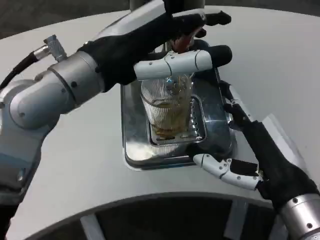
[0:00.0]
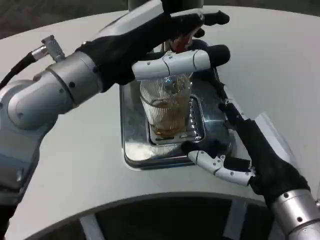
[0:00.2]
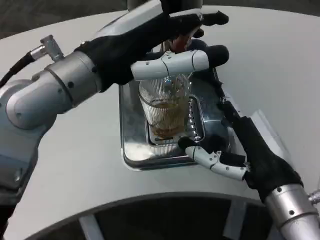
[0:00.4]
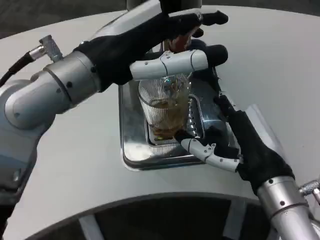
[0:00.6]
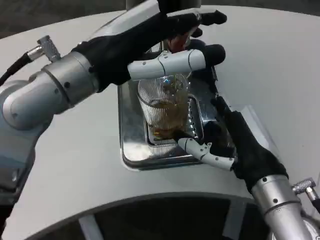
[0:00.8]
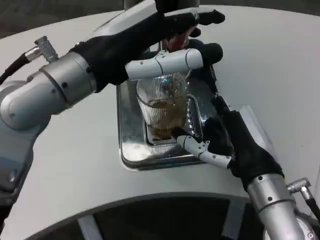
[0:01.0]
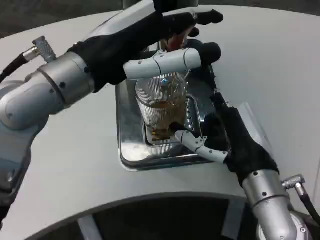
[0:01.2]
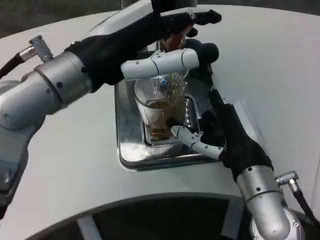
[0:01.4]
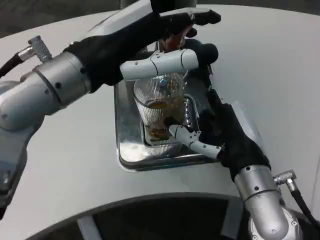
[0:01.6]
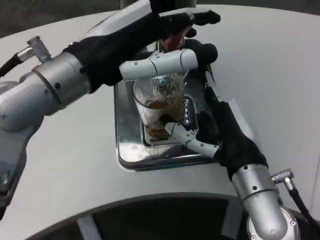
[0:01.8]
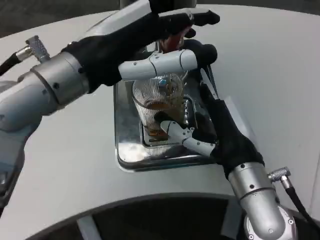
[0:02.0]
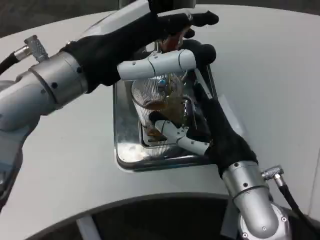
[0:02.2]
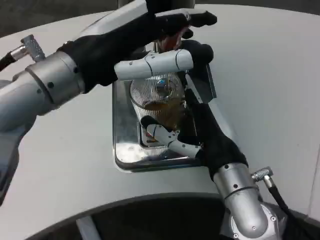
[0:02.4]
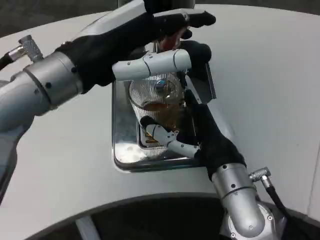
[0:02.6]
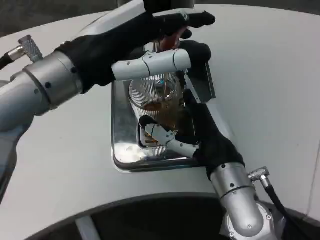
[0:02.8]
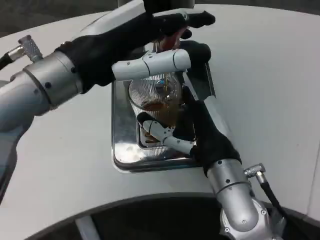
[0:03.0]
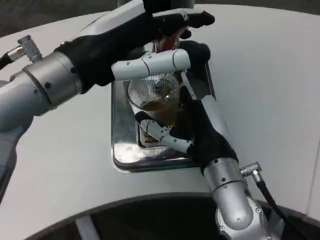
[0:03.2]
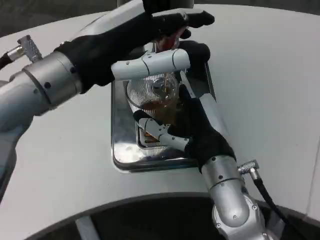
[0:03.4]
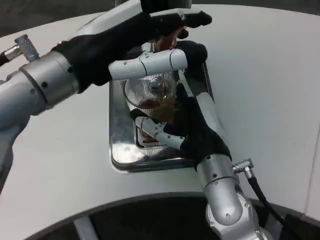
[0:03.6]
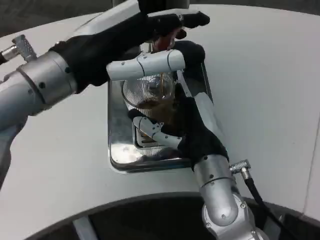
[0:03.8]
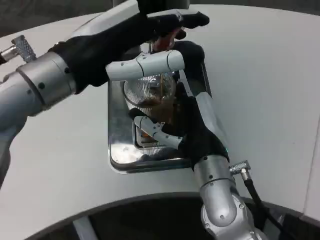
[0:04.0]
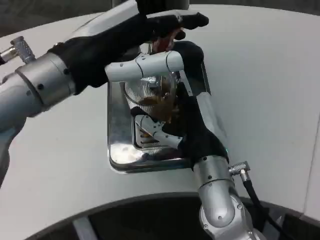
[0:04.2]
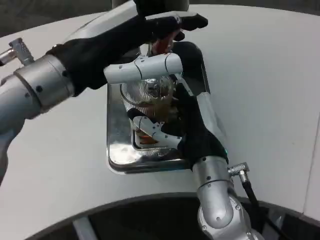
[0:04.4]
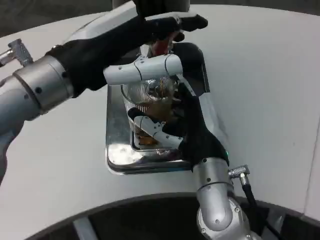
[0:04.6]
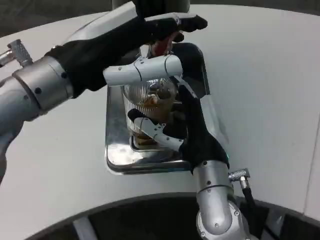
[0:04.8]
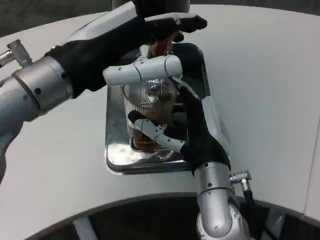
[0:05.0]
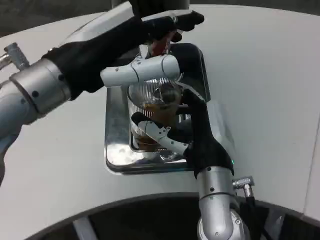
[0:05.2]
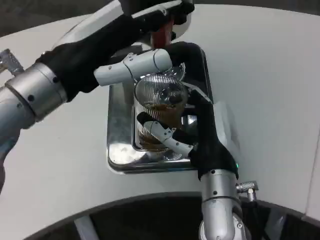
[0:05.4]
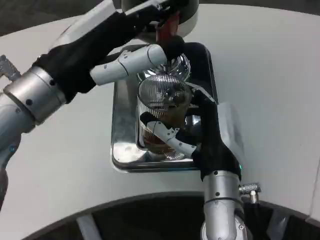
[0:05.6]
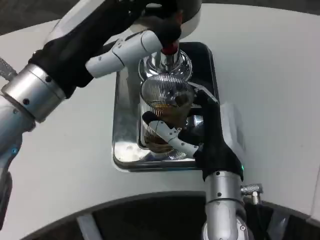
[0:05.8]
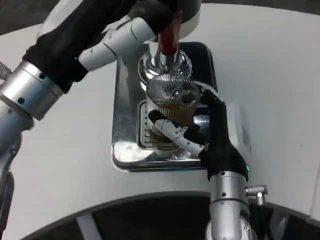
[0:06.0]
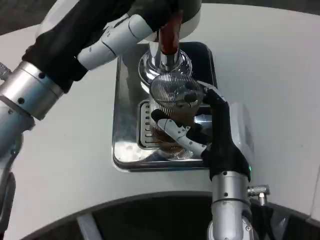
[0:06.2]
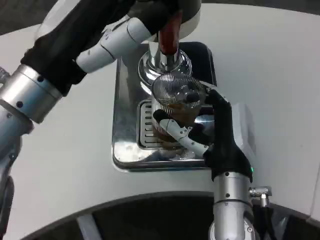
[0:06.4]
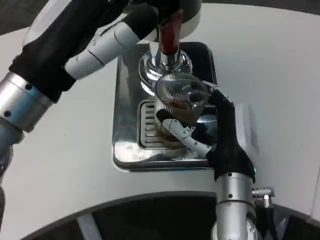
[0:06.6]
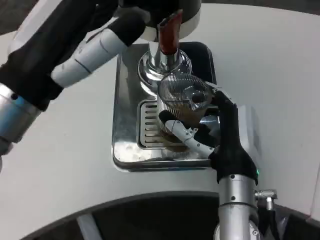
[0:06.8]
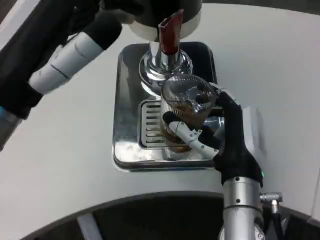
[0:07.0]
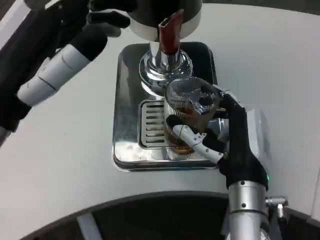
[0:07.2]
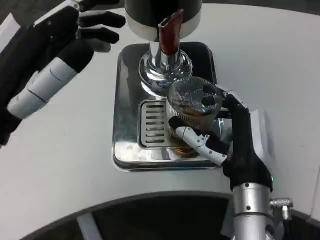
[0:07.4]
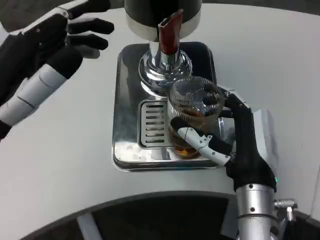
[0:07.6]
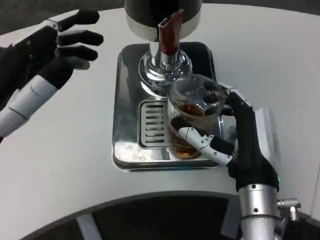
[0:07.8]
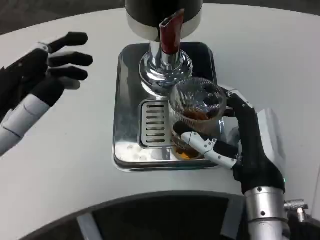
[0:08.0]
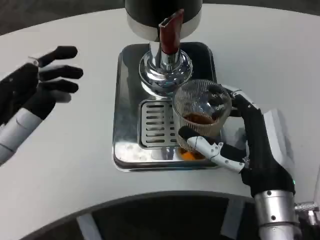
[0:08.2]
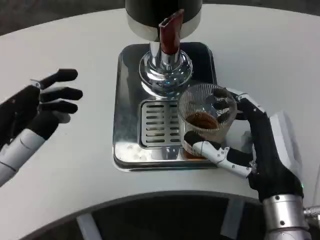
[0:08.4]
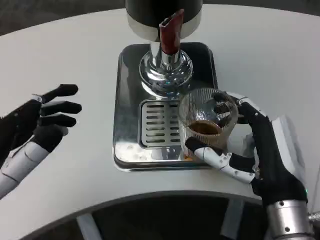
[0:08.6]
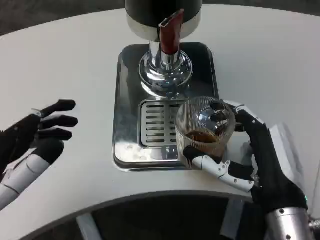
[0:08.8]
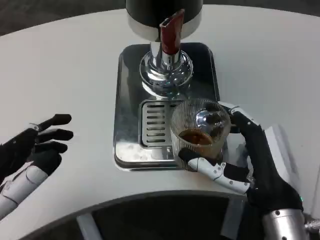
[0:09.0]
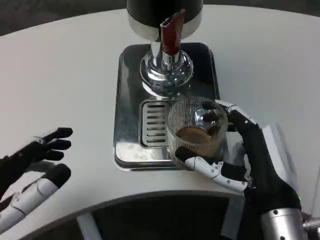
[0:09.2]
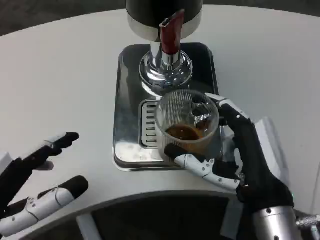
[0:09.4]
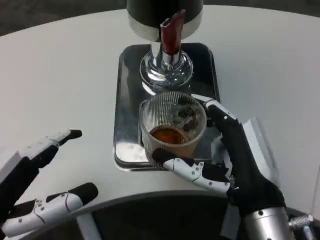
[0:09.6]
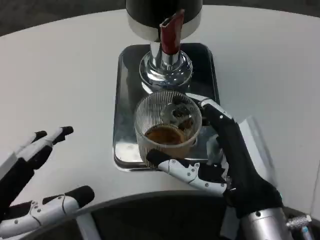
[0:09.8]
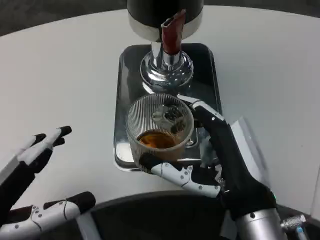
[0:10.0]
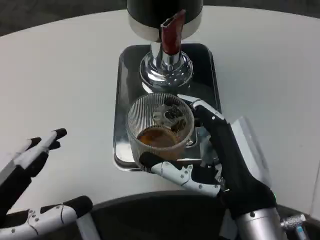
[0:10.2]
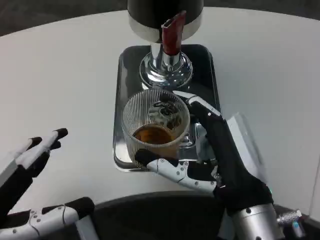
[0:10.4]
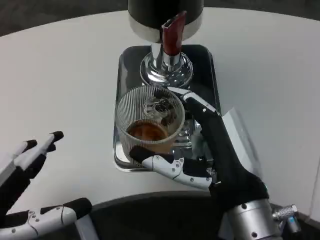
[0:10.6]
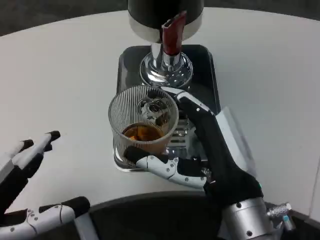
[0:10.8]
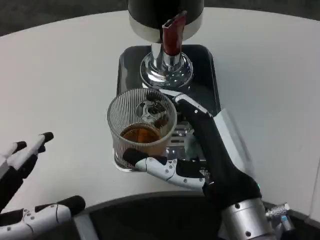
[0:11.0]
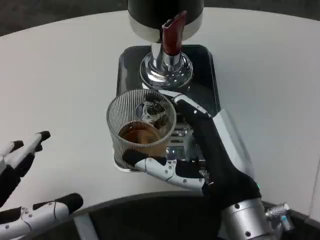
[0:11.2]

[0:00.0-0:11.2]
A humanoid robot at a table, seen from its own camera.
Task of the whole recording: Grasp the cup under the faucet to collect the drink, then remove the cup.
0:00.0 to 0:01.6: The right hand shifts some 5 cm forward.
0:06.4 to 0:08.0: The left hand travels backward, to the left and downward by some 10 cm.
0:08.0 to 0:09.6: The left hand ends up roughly 5 cm from where it was.

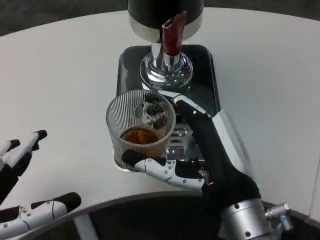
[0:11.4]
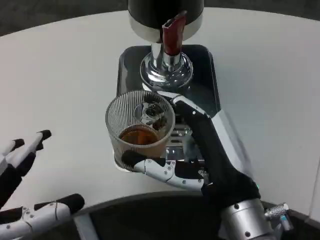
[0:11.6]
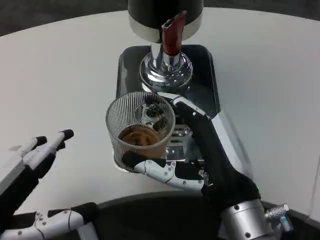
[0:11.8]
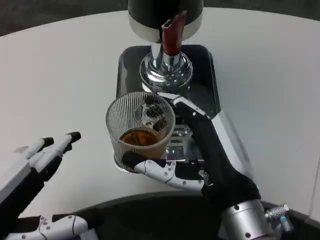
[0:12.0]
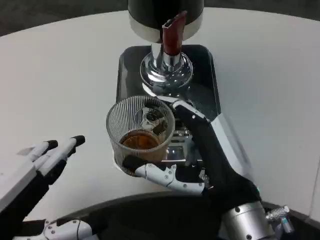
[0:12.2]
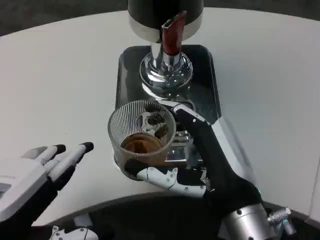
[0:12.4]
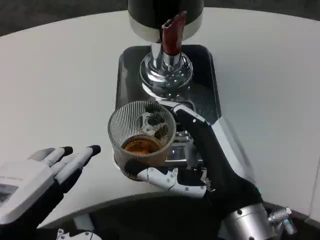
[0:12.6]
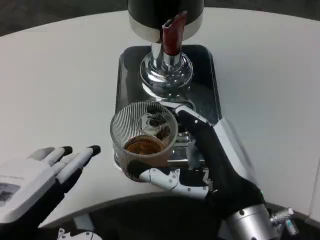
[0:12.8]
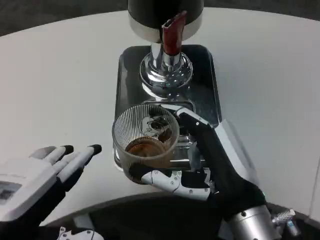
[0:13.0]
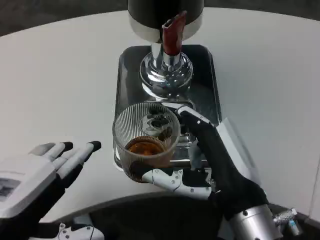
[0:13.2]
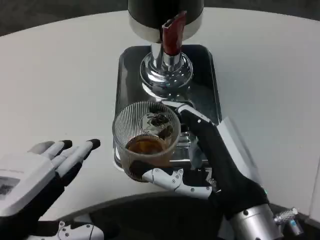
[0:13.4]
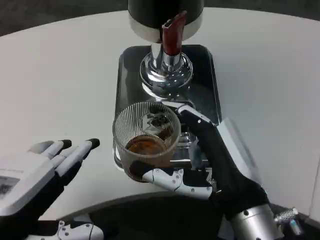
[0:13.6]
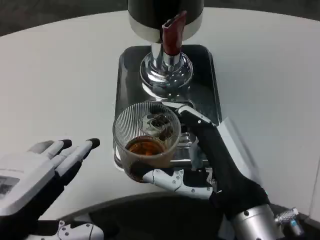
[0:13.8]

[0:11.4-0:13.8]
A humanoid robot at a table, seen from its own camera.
Task of the whole recording: Grasp the cup under the faucet to collect the drink, then remove the cup.
0:11.4 to 0:12.6: The hands make only small movements.
0:12.6 to 0:13.8: Neither hand changes place.

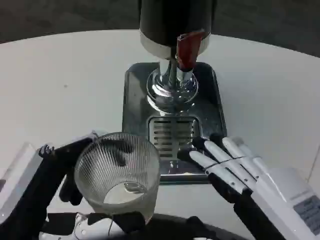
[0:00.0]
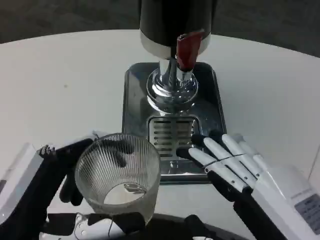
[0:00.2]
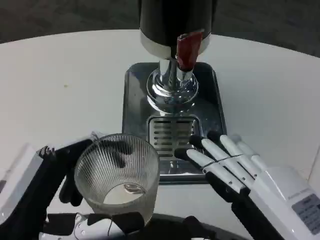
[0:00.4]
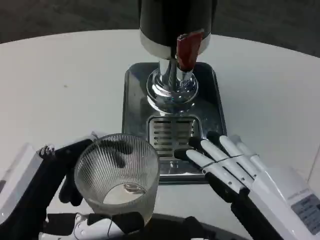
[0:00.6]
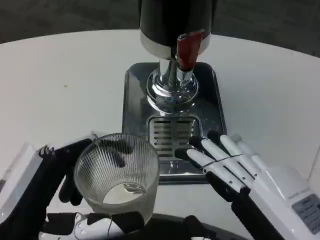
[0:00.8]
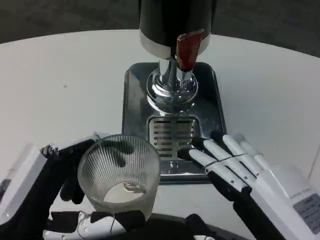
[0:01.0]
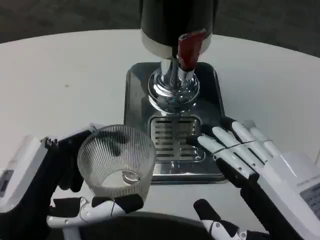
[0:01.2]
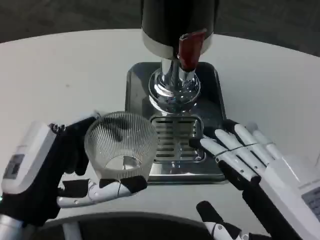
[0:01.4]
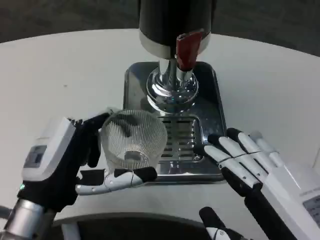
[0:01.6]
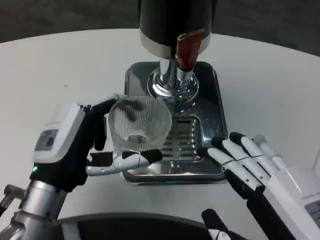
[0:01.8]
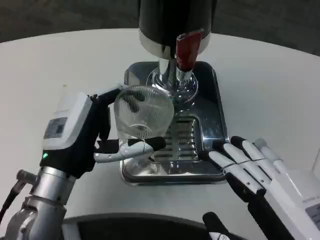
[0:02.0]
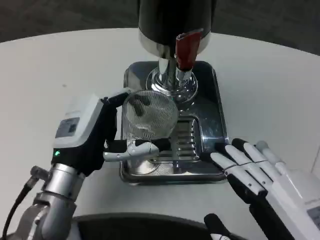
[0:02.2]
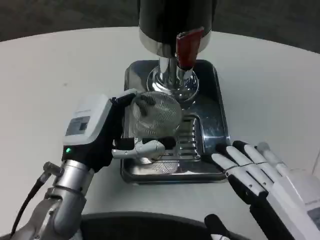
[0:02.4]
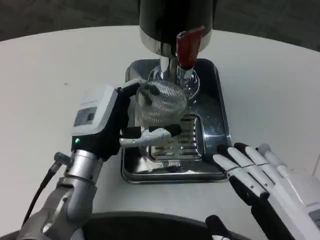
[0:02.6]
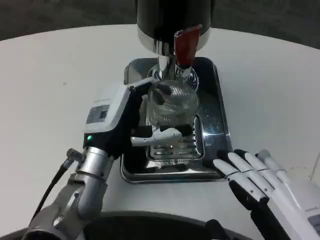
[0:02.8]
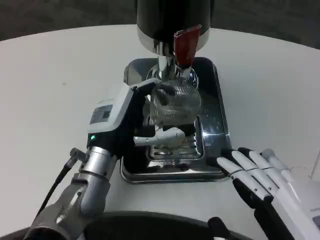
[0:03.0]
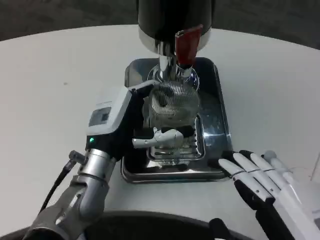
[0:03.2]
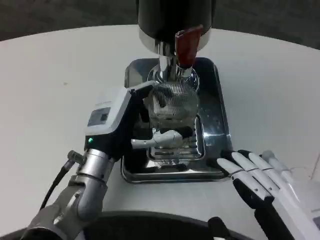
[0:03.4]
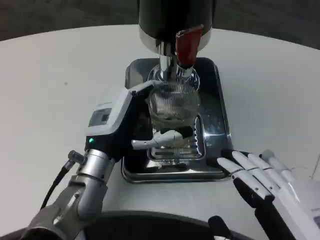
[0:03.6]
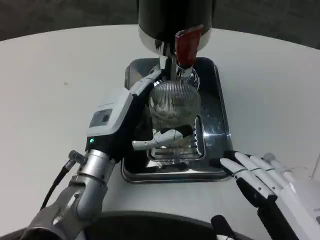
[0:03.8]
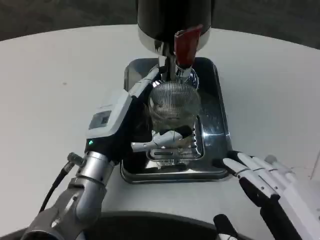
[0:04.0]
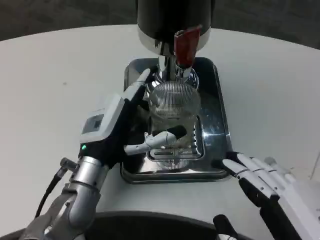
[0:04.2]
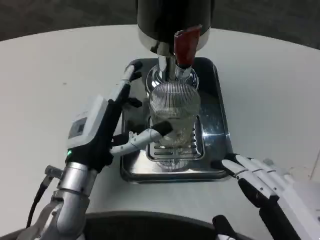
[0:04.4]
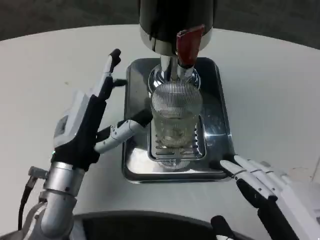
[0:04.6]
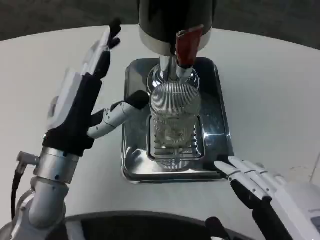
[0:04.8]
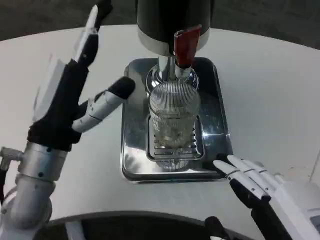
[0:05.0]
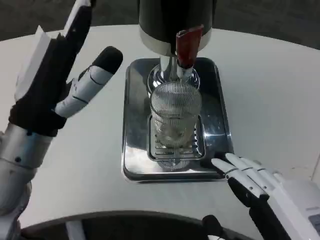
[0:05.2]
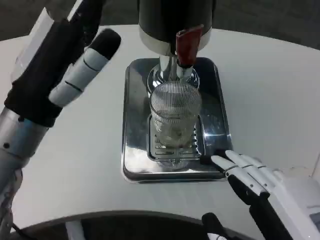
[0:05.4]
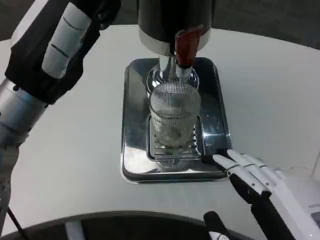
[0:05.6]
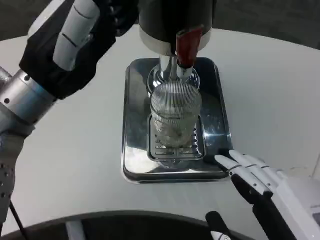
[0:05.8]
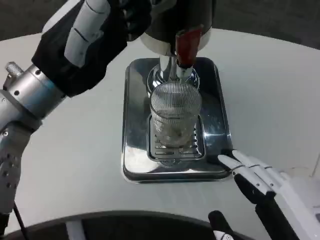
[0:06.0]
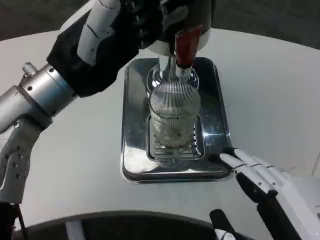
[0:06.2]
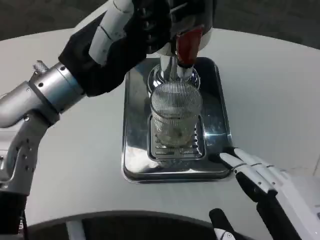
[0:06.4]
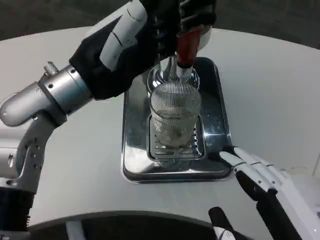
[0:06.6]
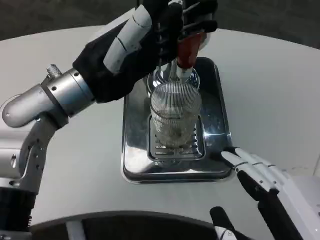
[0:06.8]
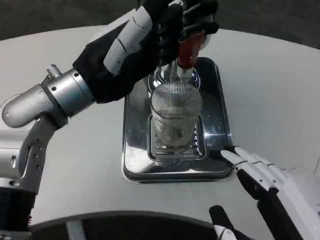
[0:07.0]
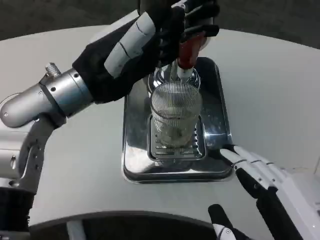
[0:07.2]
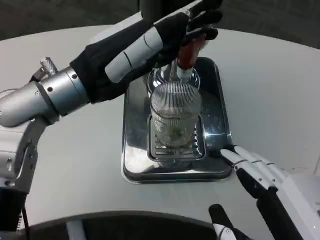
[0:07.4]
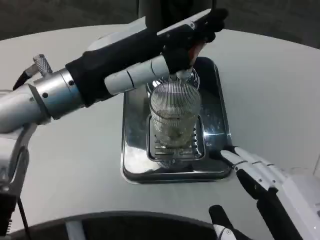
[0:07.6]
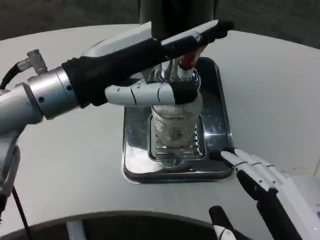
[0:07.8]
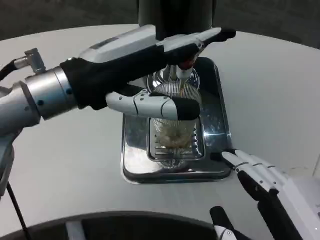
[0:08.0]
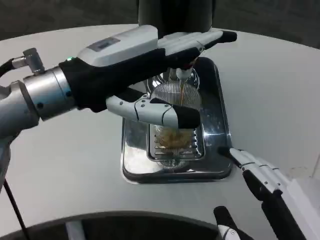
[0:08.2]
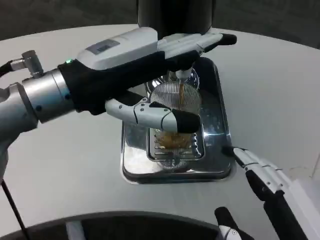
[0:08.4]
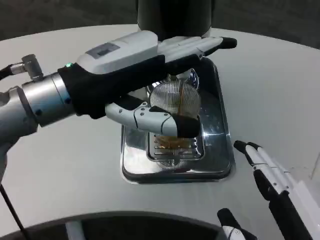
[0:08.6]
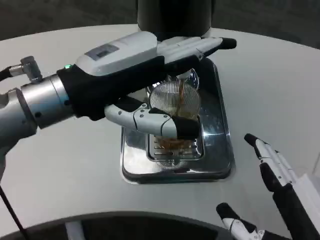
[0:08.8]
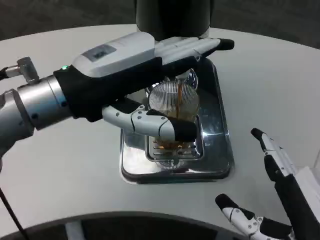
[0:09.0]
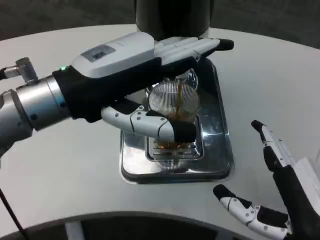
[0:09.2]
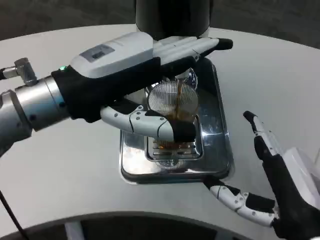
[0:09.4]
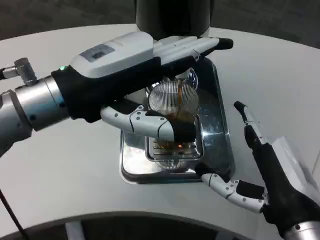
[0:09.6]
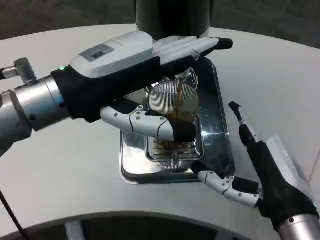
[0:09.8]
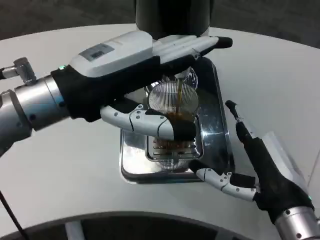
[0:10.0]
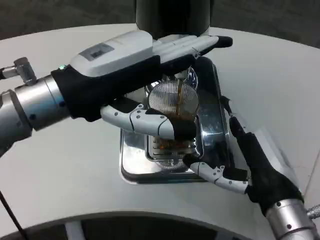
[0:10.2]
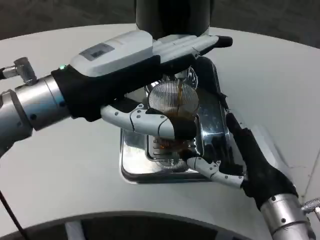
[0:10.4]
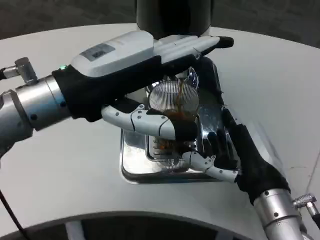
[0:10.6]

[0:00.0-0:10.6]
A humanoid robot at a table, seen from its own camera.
Task of the whole recording: Grasp the cup under the faucet to collect the drink, then remove the cup.
0:00.0 to 0:01.6: The left hand heads forward, covering some 10 cm.
0:01.6 to 0:03.0: The left hand is displaced forward and to the right by roughly 10 cm.
0:03.0 to 0:04.6: The left hand moves about 5 cm.
0:04.6 to 0:06.0: The left hand moves upward, about 15 cm.
0:09.0 to 0:10.6: The right hand goes about 10 cm forward.
